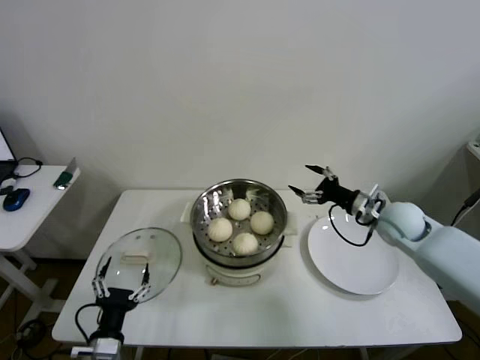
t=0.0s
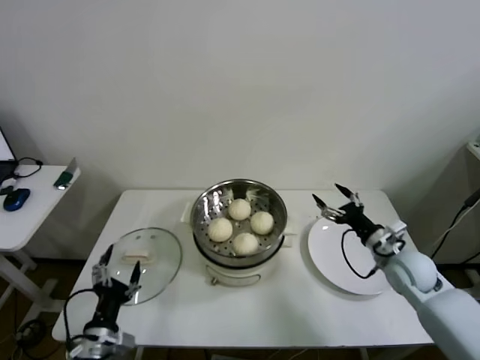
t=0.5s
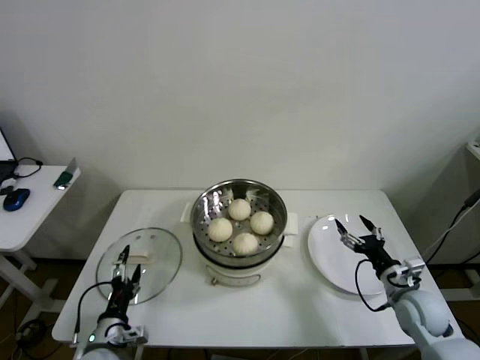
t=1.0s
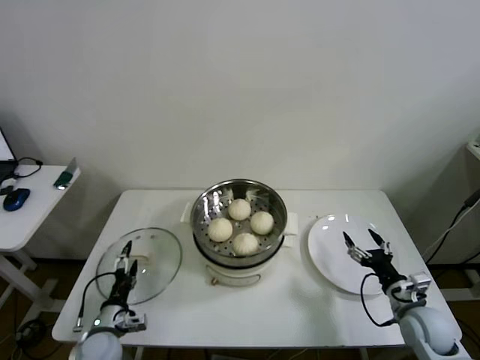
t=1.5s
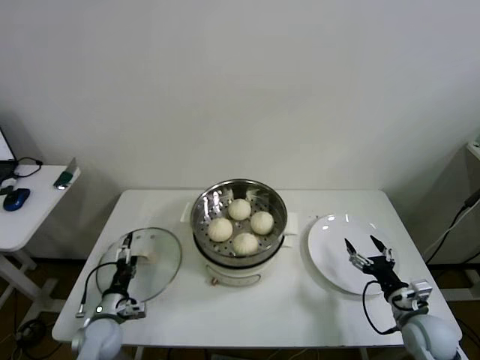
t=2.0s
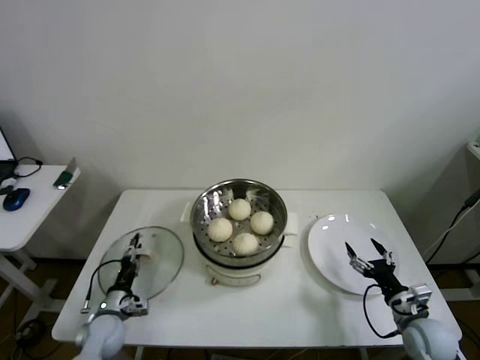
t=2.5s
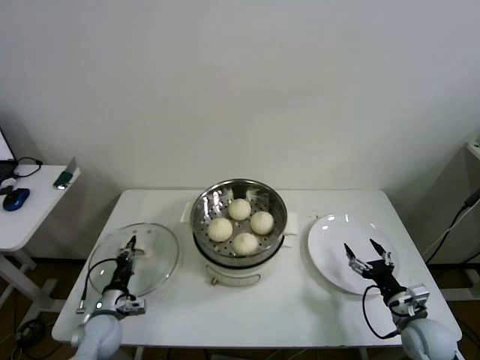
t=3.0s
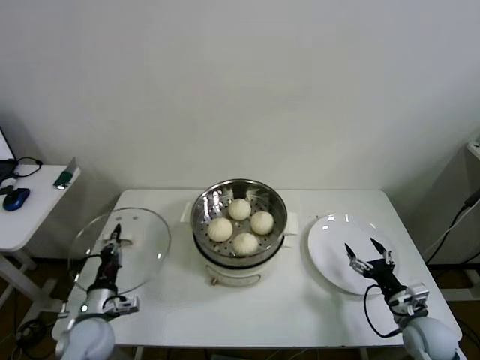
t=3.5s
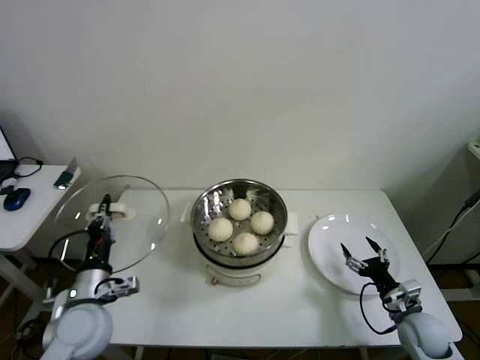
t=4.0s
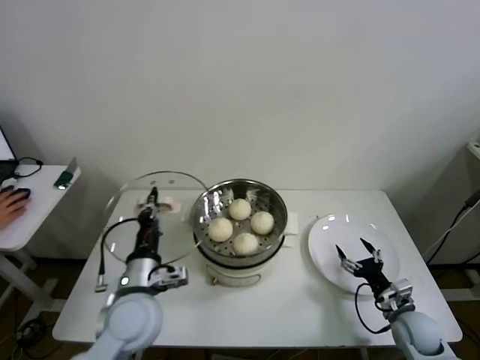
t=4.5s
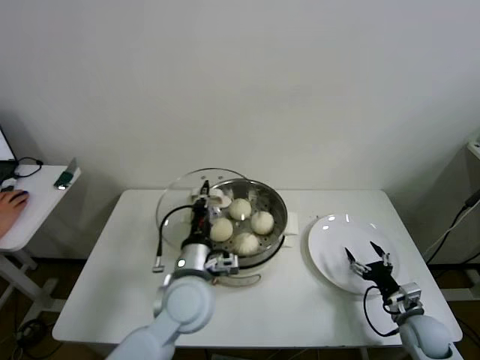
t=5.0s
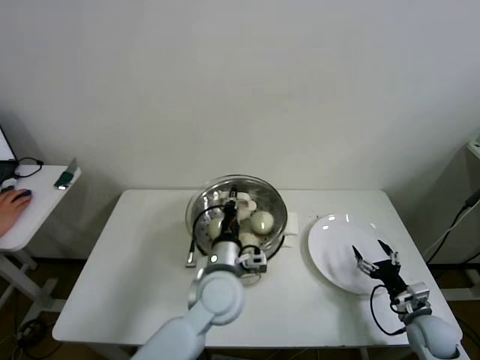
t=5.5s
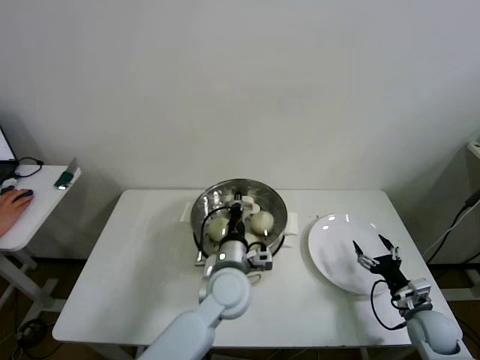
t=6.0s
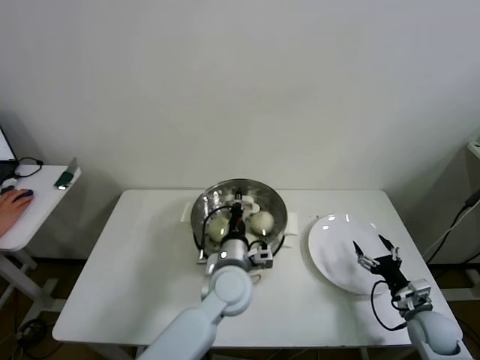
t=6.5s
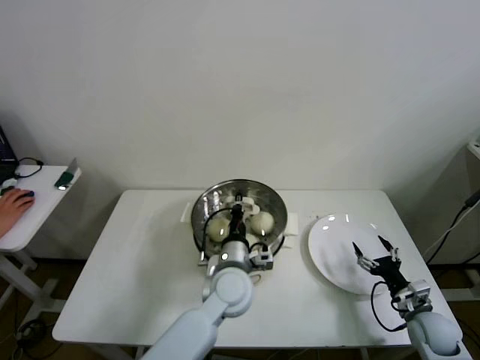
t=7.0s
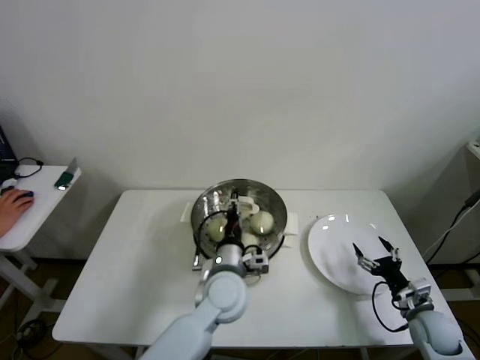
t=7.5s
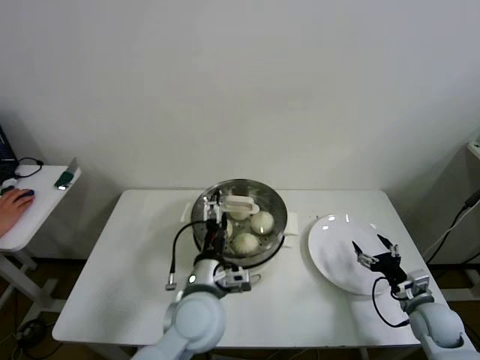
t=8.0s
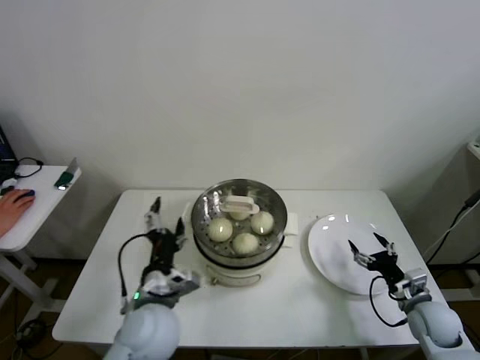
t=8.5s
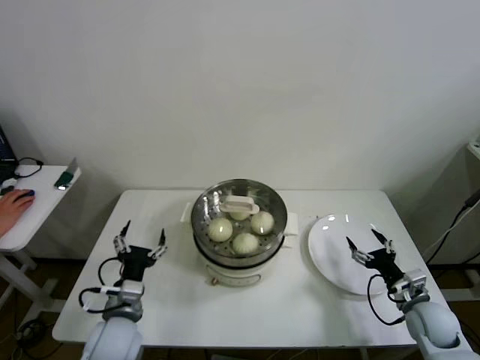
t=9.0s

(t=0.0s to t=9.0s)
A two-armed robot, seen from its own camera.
Step, t=0.0s - t=2.5s: Grasp the pot lid with left gripper.
Step, t=3.0s - t=7.0s: Place the pot lid on the steamer with left gripper.
t=0.0s - t=2.0s: The right gripper shifts approximately 25 cm backward and downward. The left gripper heads forward, downward and to the left, covering roughly 20 cm.
t=2.0s - t=4.5s: The left gripper is displaced upward and to the right by roughly 25 cm, and closes.
t=4.5s - t=7.0s: The left gripper travels to the right and forward by approximately 20 cm.
t=7.0s - t=9.0s: The left gripper heads to the left and backward, covering approximately 25 cm, and opens its fingers.
